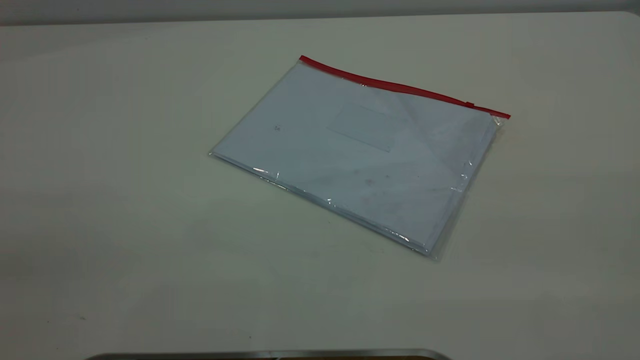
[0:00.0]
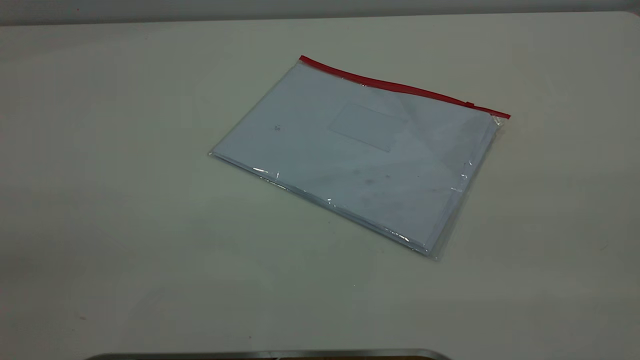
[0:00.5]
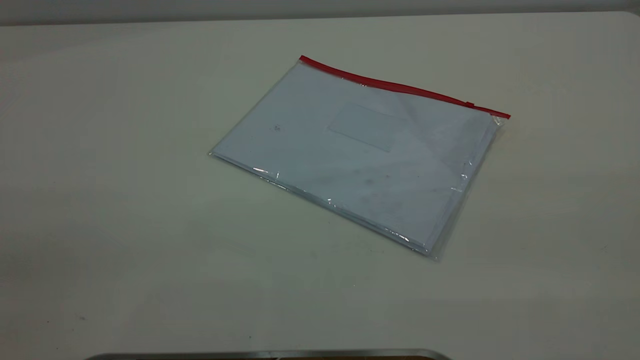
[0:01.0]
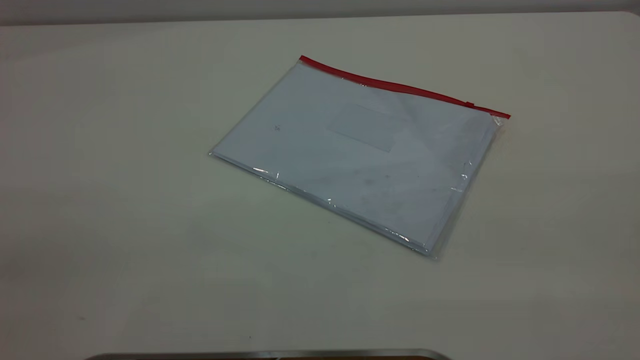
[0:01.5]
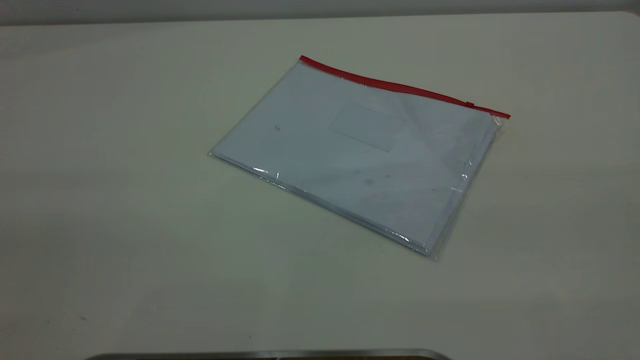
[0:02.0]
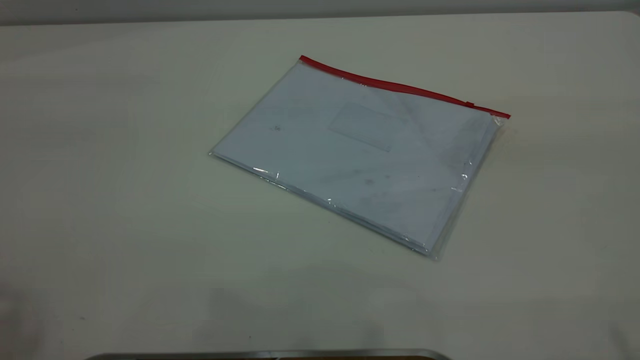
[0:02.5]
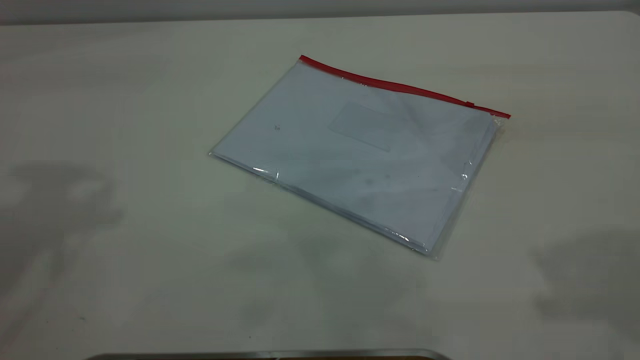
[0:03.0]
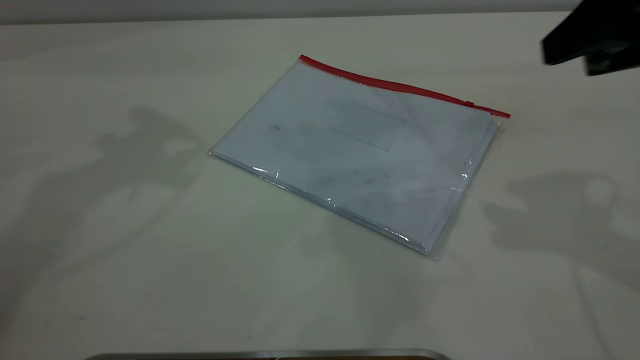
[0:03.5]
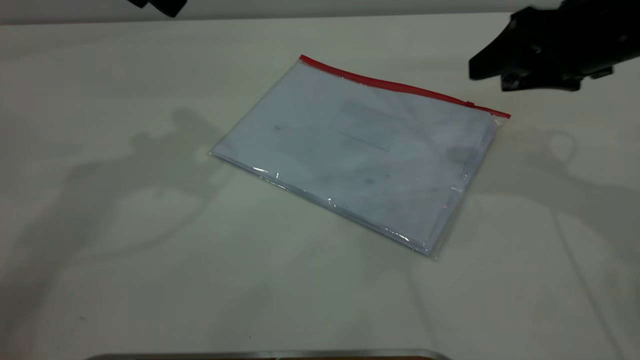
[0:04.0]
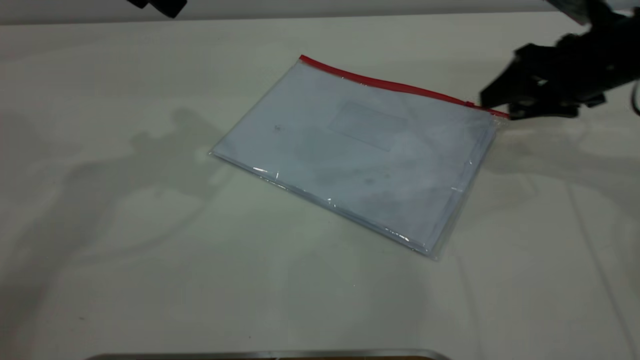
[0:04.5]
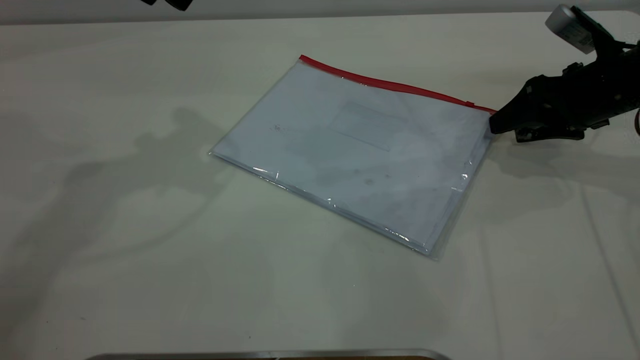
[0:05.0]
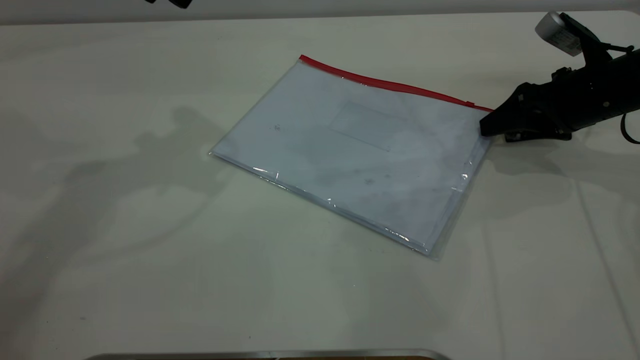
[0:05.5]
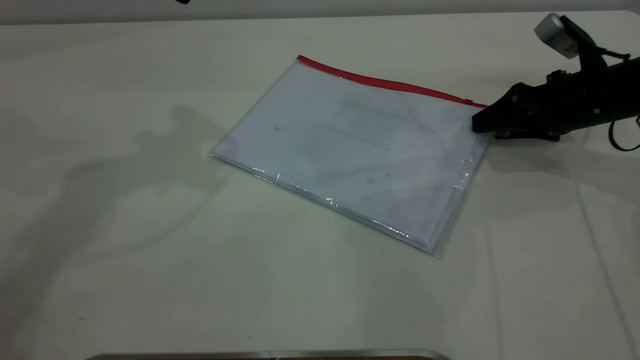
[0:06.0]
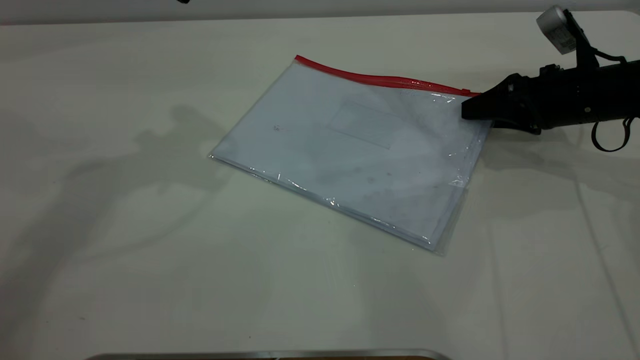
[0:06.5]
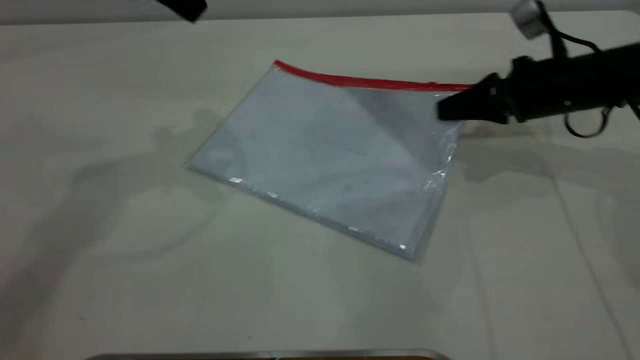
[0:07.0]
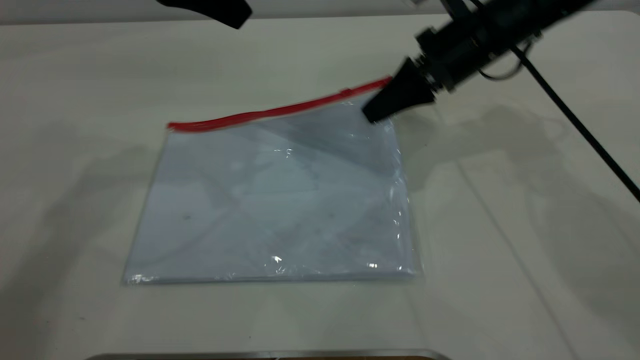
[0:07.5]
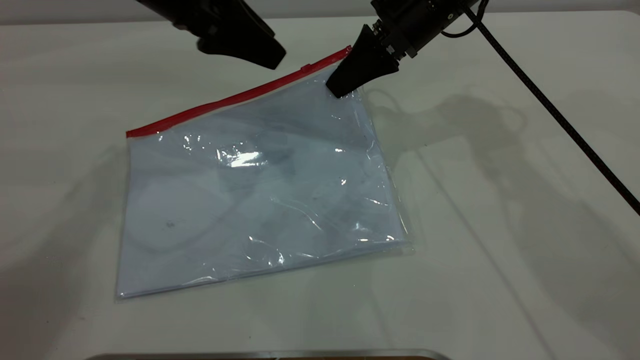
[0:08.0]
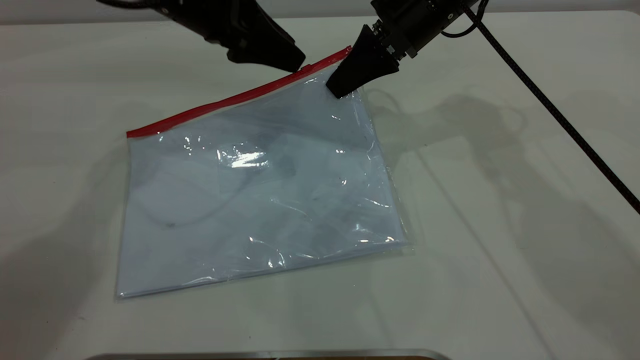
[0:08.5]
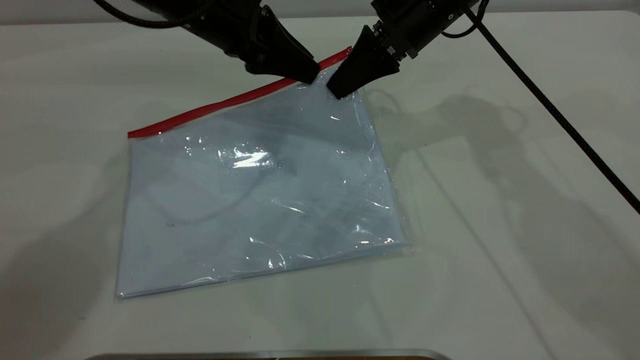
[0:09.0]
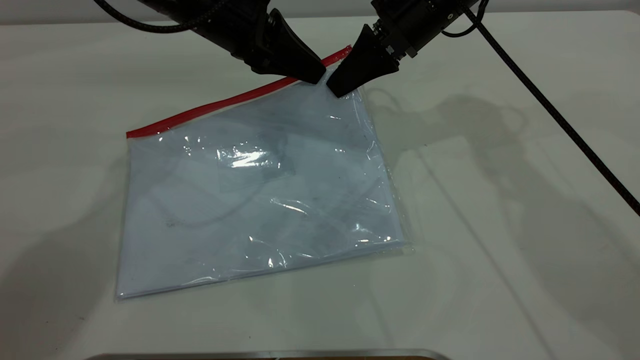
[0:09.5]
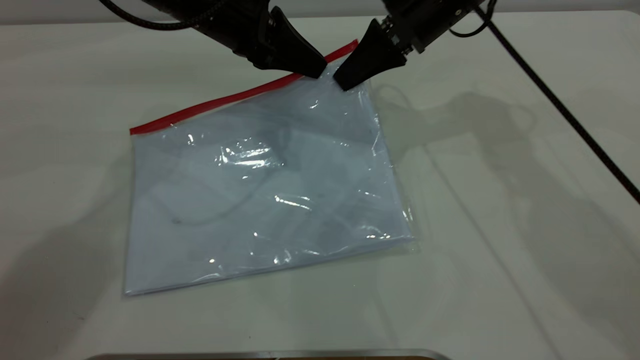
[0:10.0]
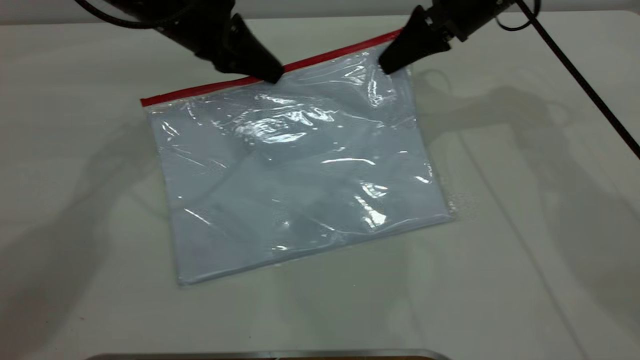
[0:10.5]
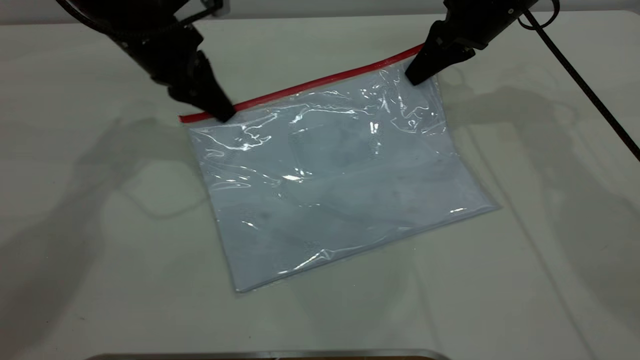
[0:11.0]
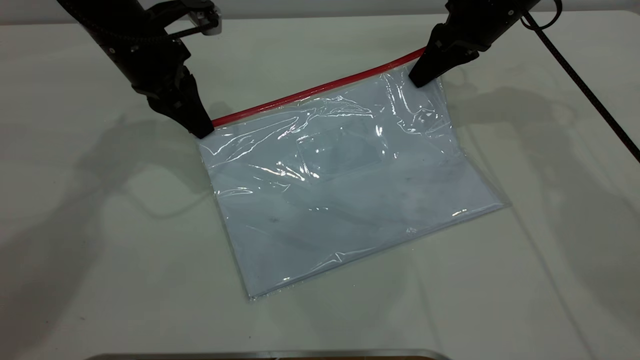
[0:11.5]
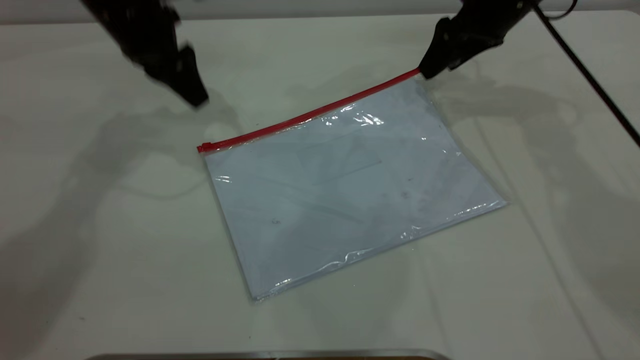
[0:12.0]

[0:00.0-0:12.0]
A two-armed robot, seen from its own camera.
Step, 0:00.0 to 0:07.5: Pick up the transparent plastic bag with the right gripper.
Step, 0:08.0 to 0:11.5: Pulling up the zipper on the transparent plastic bag with the left gripper to close it.
0:02.0 to 0:04.0: The right gripper heads forward and downward, covering approximately 40 cm.
0:04.0 to 0:06.0: The right gripper is displaced downward by roughly 10 cm.
0:06.0 to 0:08.0: The left gripper heads downward, covering roughly 10 cm. The right gripper heads to the left and upward, covering roughly 20 cm, and closes its fingers.
0:08.0 to 0:10.0: The left gripper moves some 5 cm, and closes its fingers.
0:10.0 to 0:12.0: The right gripper is displaced to the right by approximately 10 cm, and opens; the left gripper travels to the left by approximately 10 cm, and opens.

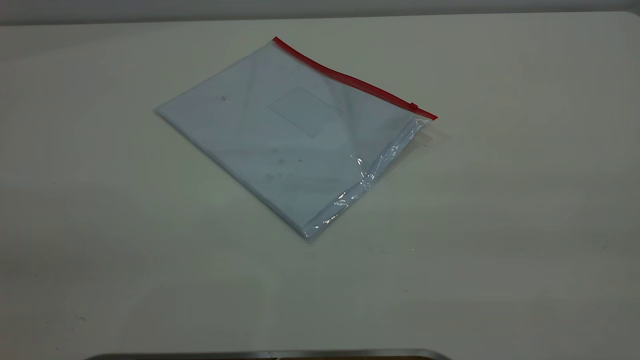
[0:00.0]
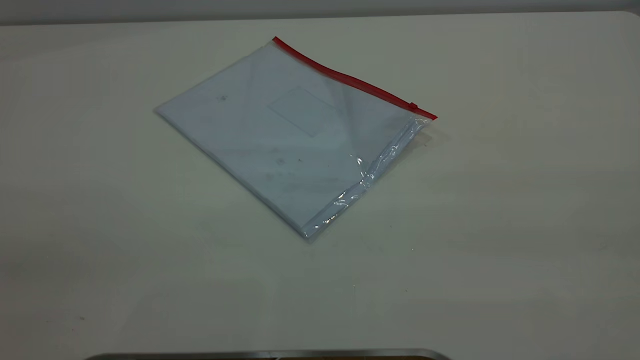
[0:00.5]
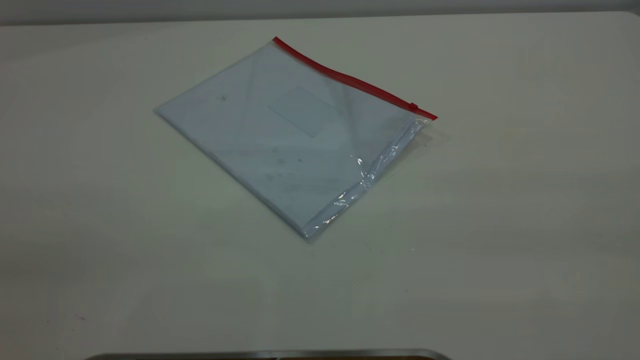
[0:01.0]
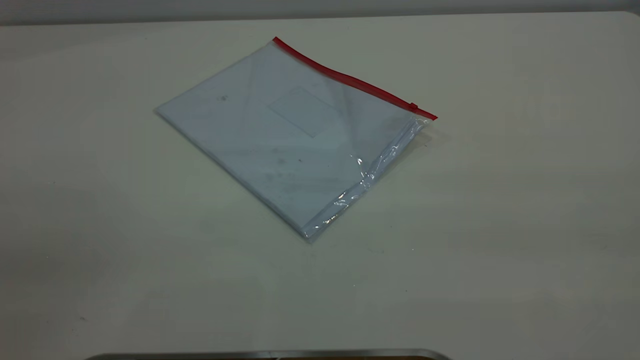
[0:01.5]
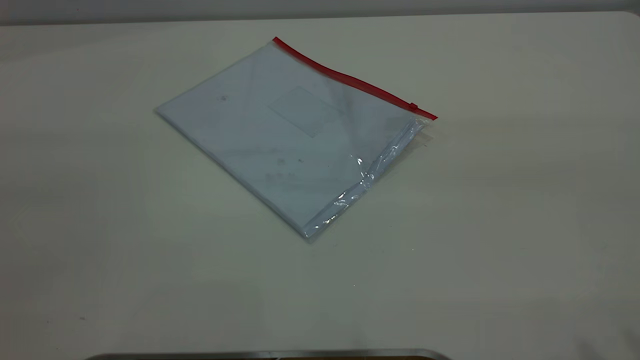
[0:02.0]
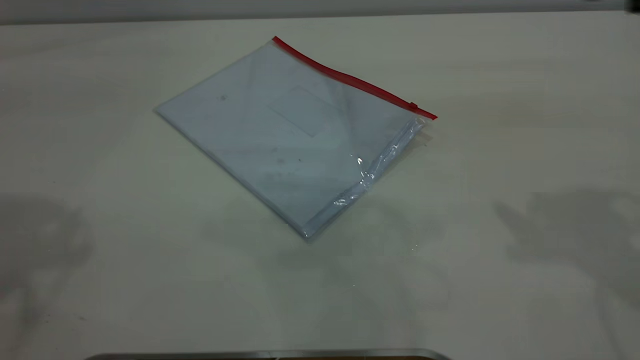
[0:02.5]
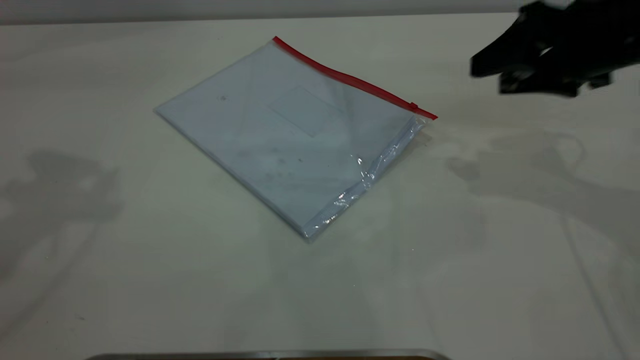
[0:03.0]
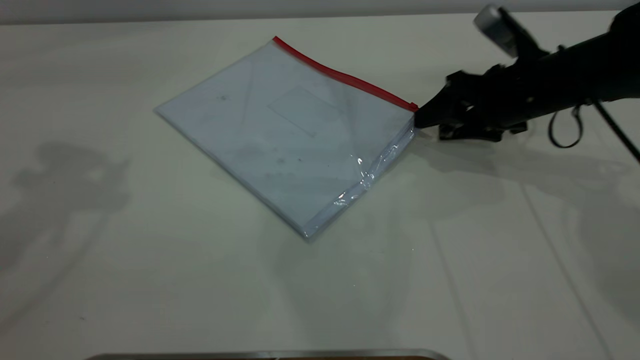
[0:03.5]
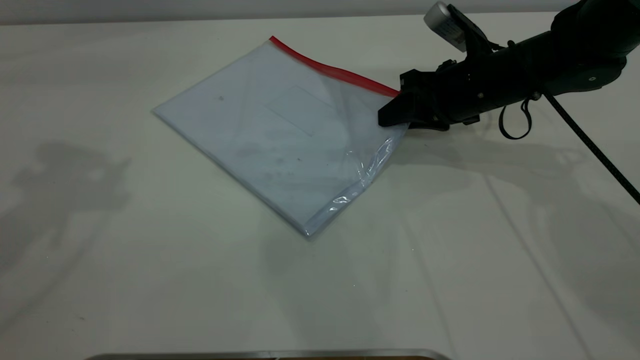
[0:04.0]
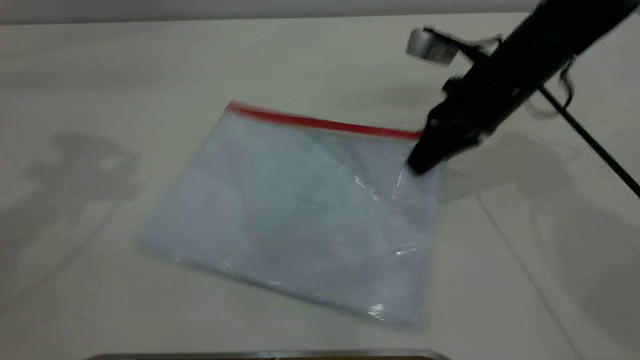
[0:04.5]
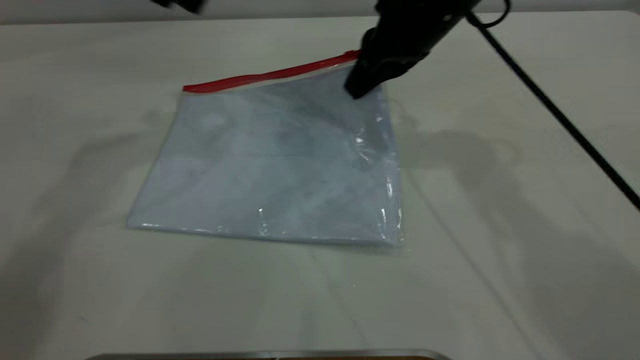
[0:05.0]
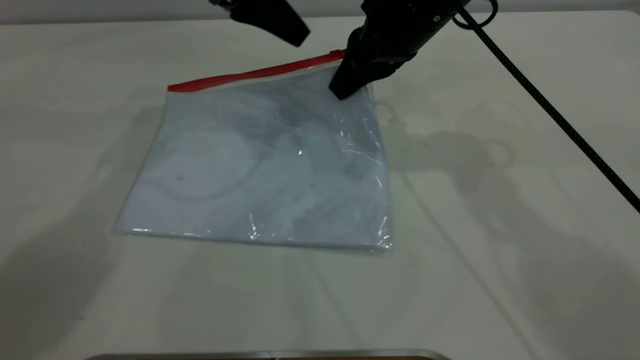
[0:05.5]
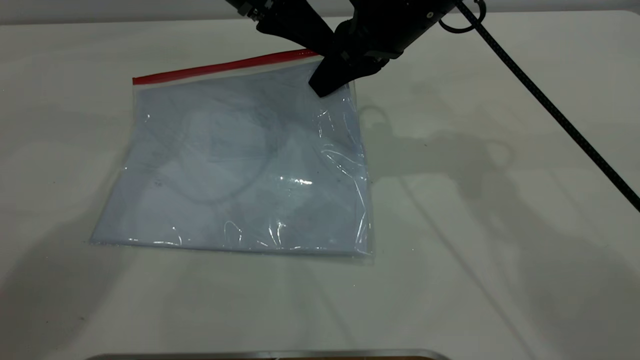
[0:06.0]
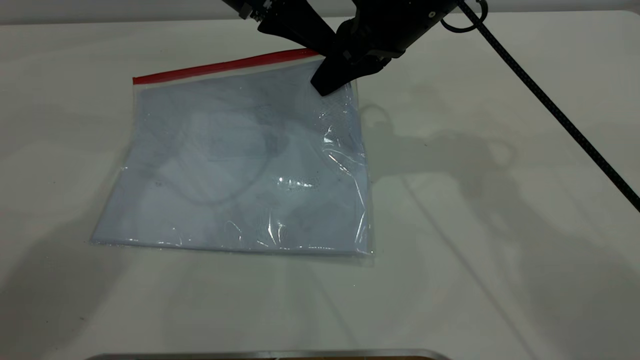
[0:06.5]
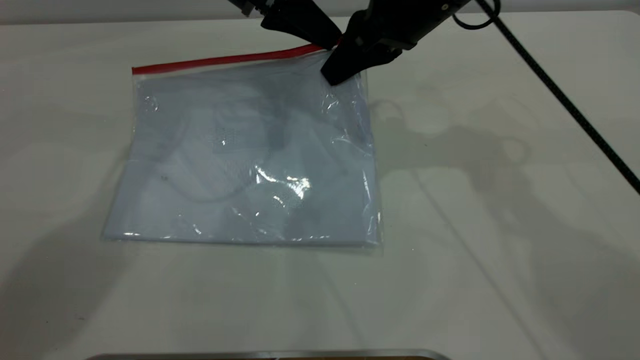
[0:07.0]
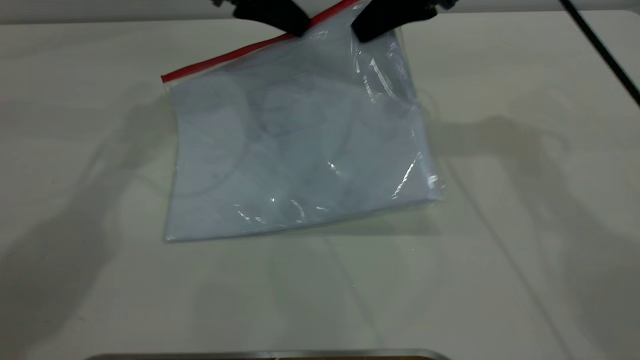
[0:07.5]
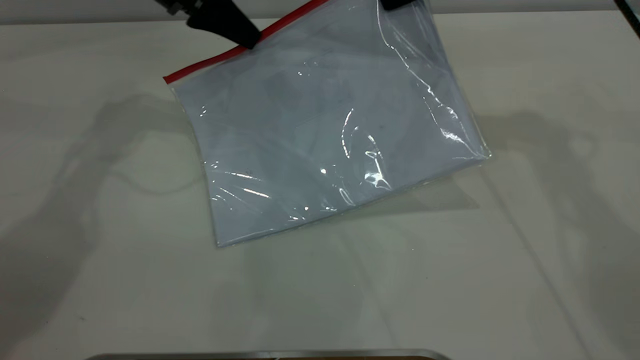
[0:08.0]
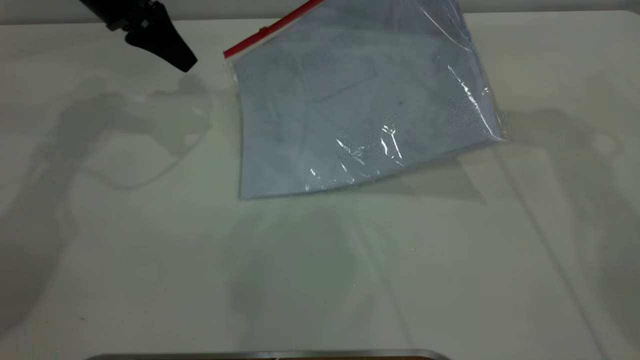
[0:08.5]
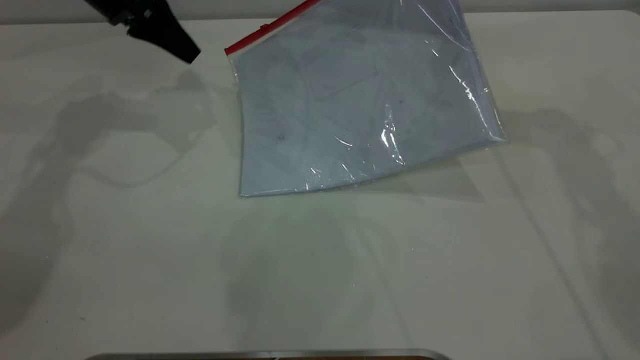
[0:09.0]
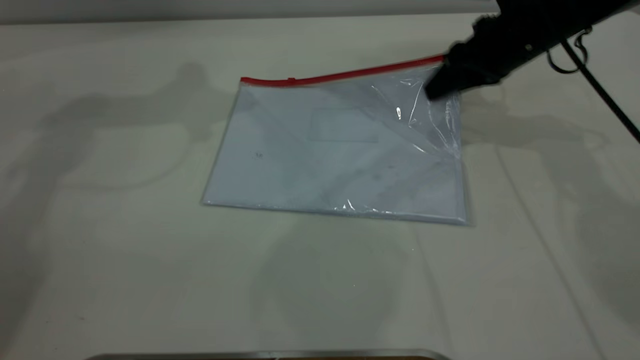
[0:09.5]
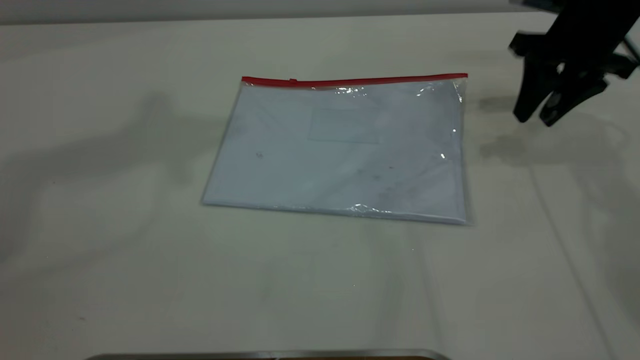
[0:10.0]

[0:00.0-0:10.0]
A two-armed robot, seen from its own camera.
Step, 0:00.0 to 0:04.5: Pick up the transparent plastic bag with the right gripper.
Step, 0:05.0 to 0:09.0: Pulling up the zipper on the transparent plastic bag with the left gripper to close it.
0:02.0 to 0:04.0: The right gripper heads forward and downward, covering some 50 cm, and closes its fingers. Meanwhile the left gripper is displaced forward by roughly 25 cm.
0:04.0 to 0:06.0: The right gripper goes some 15 cm upward and to the left. Meanwhile the left gripper moves to the right, downward and forward, about 30 cm.
0:06.0 to 0:08.0: The right gripper heads to the right, covering about 10 cm. The left gripper heads to the left, covering some 10 cm, and closes its fingers.
0:08.0 to 0:10.0: The left gripper heads upward, covering approximately 35 cm, while the right gripper travels to the right and downward by some 10 cm, and opens.
